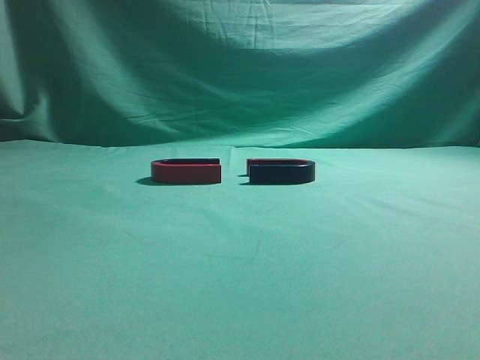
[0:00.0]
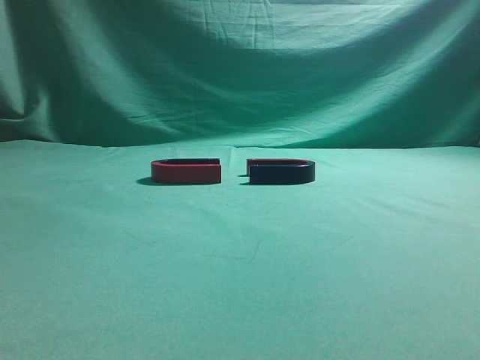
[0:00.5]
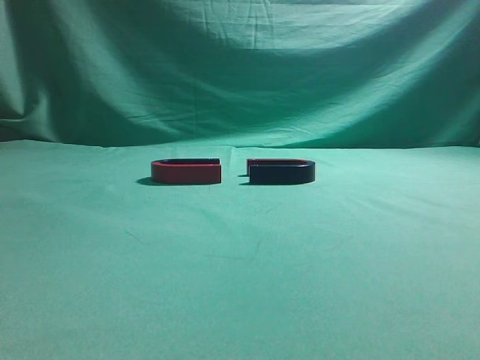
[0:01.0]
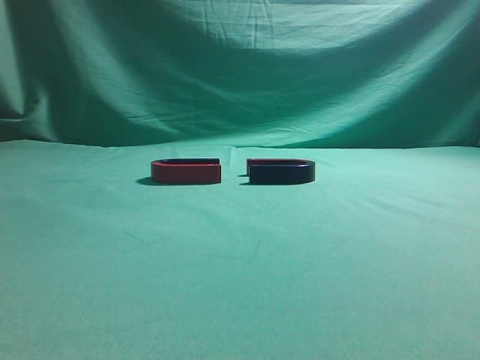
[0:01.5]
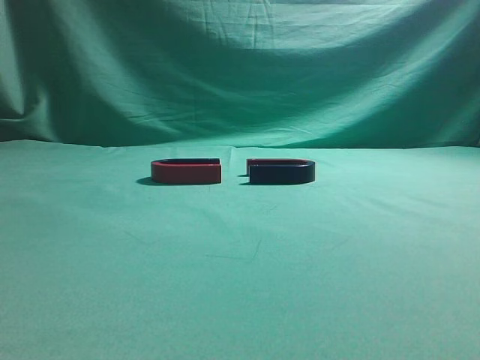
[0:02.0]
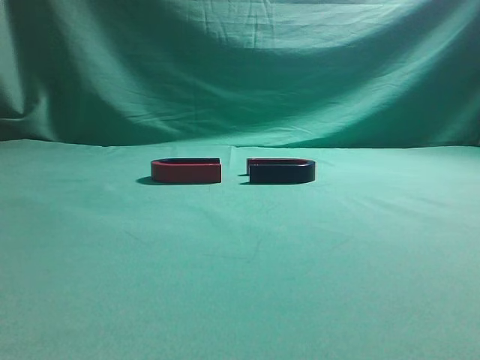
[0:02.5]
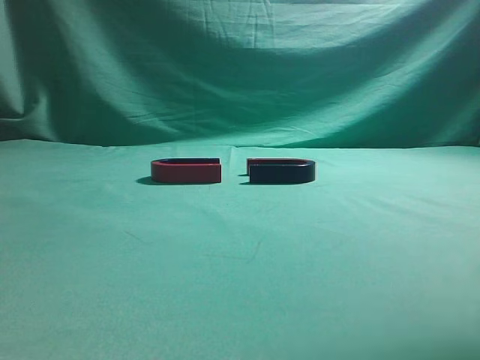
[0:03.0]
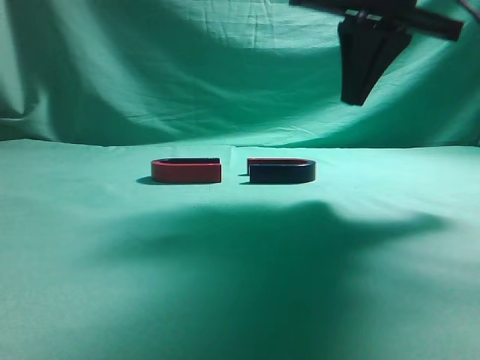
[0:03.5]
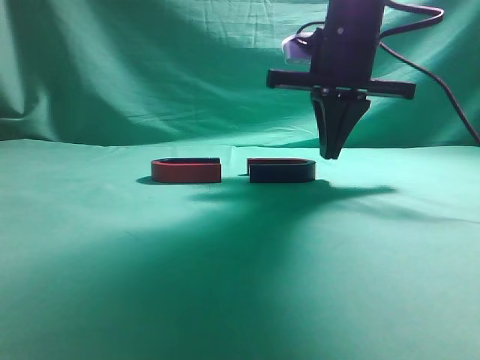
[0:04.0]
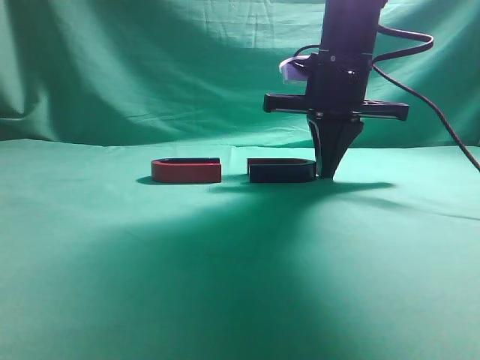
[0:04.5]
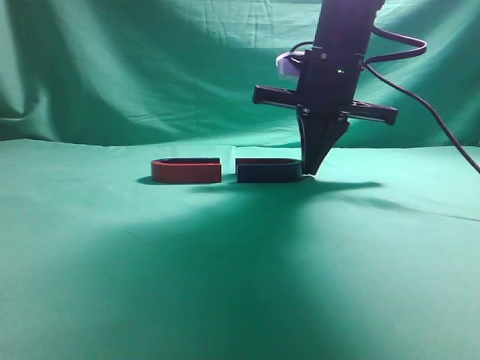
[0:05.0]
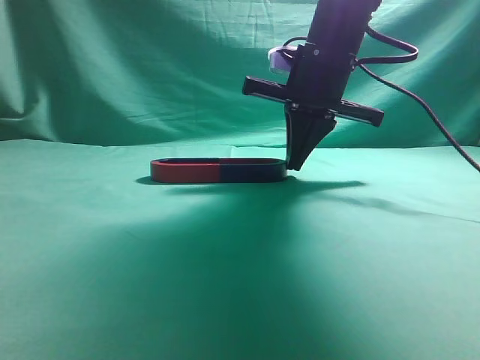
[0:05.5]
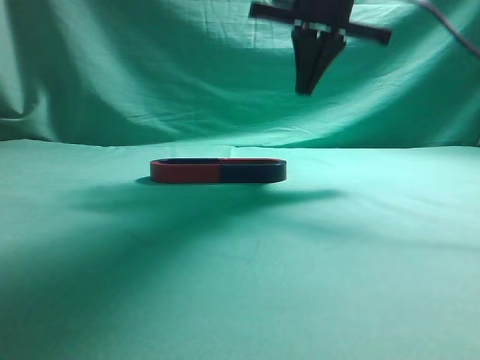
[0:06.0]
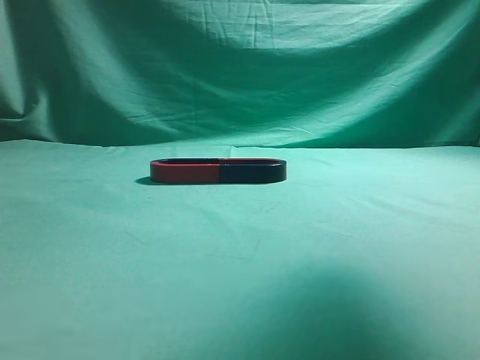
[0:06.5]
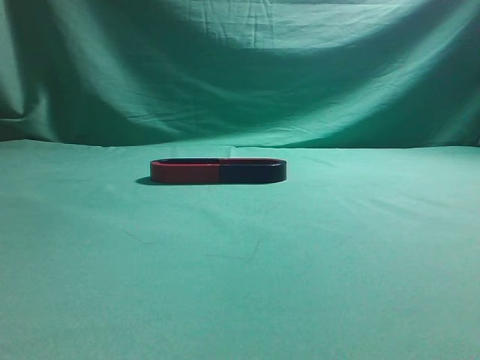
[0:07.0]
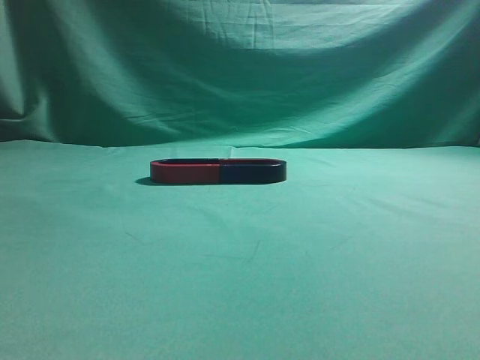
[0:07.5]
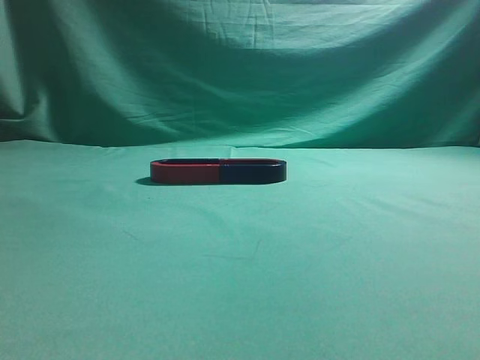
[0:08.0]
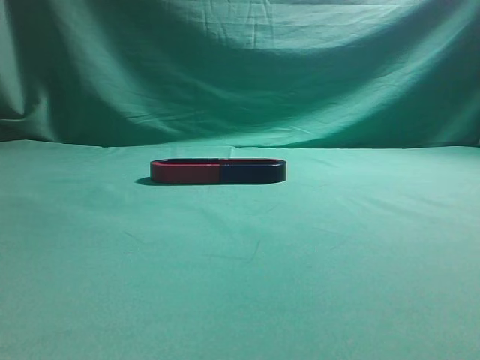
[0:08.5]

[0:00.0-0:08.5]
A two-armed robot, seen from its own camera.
Task of the whole recording: push the magnet on the table from its original position to another position.
Step, 0:00.0 to 0:05.5: Push the magnet on the right to connect the magnet on the left.
0:02.0 to 0:04.0: The right gripper travels forward and to the left by some 40 cm.
0:04.0 to 0:06.5: The right gripper moves upward and backward, some 20 cm.
0:06.5 to 0:08.5: The right gripper is displaced backward, downward and to the right by approximately 35 cm.
